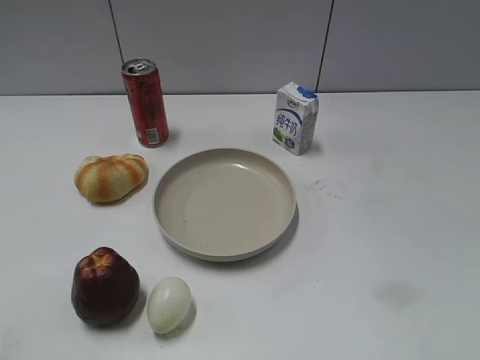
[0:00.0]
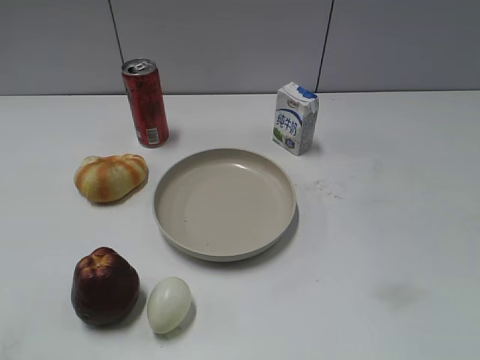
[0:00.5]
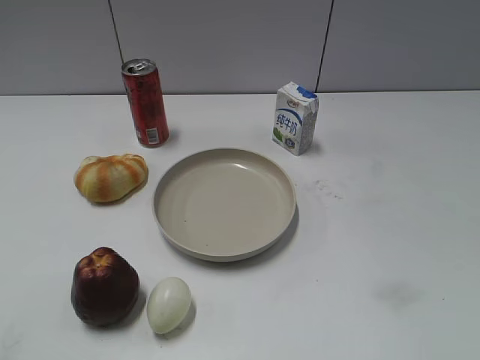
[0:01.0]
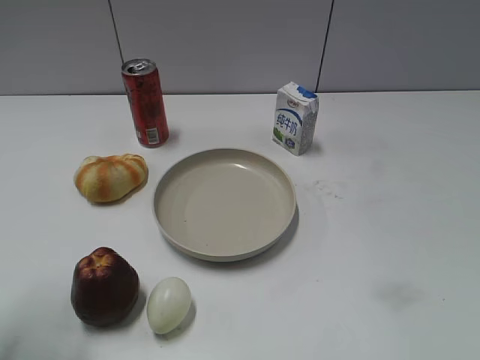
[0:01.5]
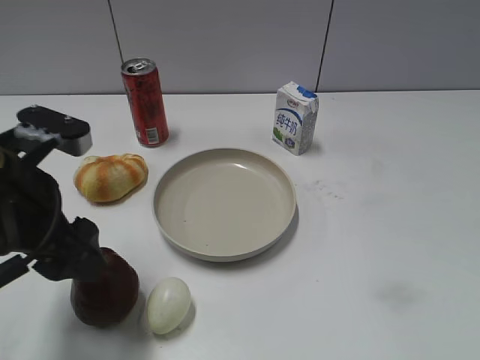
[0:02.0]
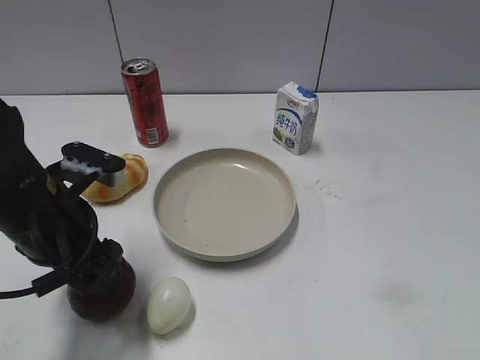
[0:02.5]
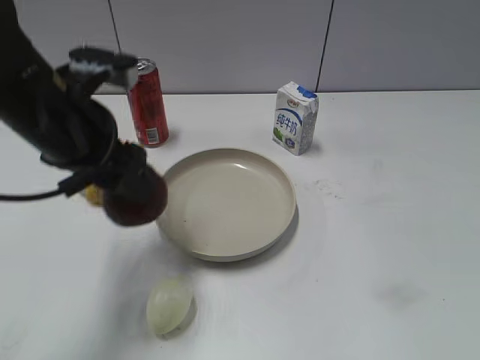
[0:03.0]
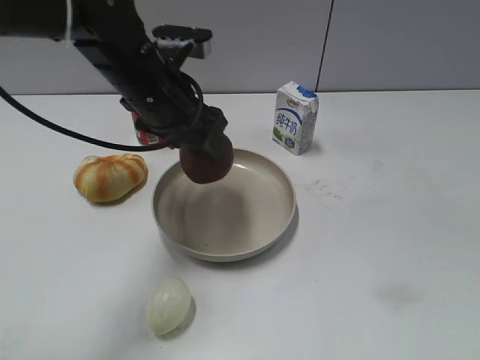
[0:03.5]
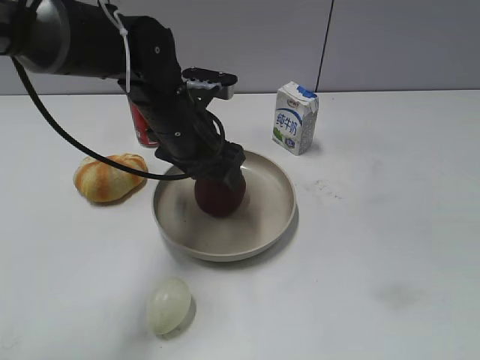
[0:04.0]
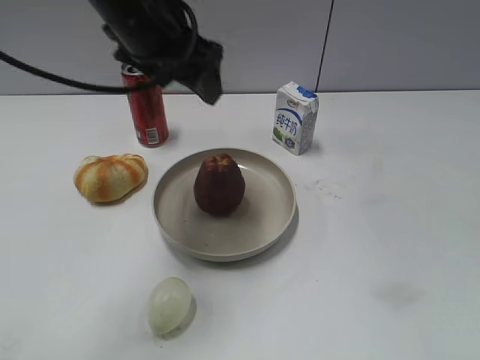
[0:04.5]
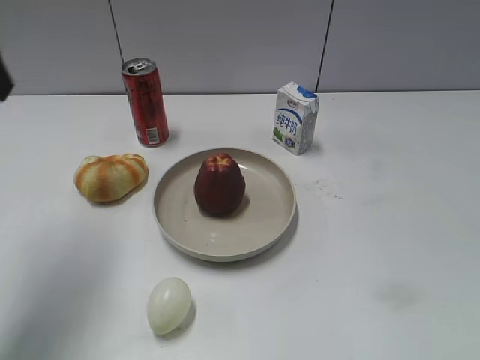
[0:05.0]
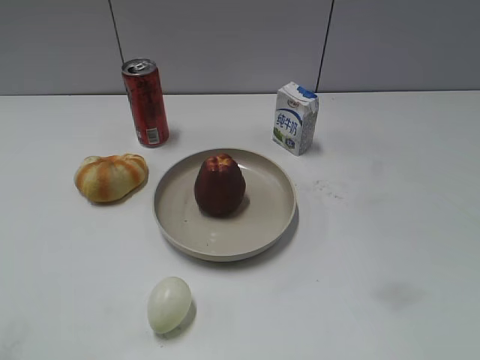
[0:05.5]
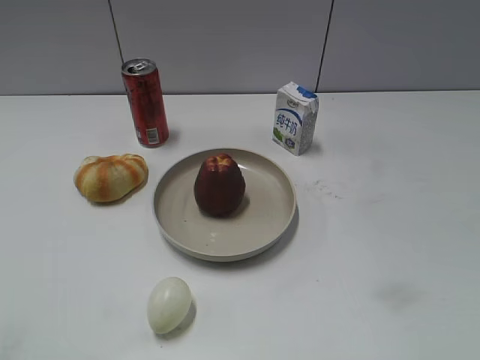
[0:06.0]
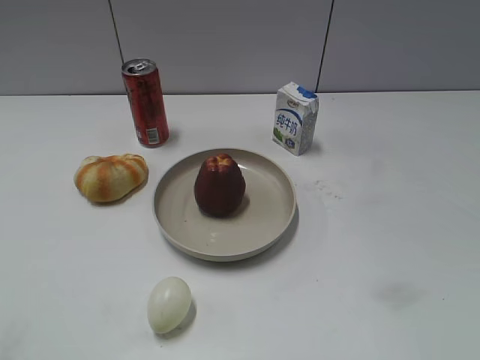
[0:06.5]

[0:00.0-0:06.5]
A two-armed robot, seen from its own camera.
Step, 0:01.0 to 0:02.5: Grasp the apple with left gripper.
Step, 0:03.0 to 0:04.0: Place the apple on the plate with left gripper.
0:02.0 to 0:04.5: The left gripper goes up and down, some 20 cm each way, reversing 2 times, and closes and opens again.
0:04.5 to 0:06.5: The left gripper heads backward and to the left, covering some 40 cm, and closes its fingers.

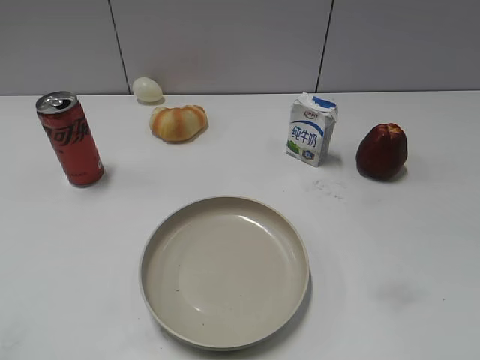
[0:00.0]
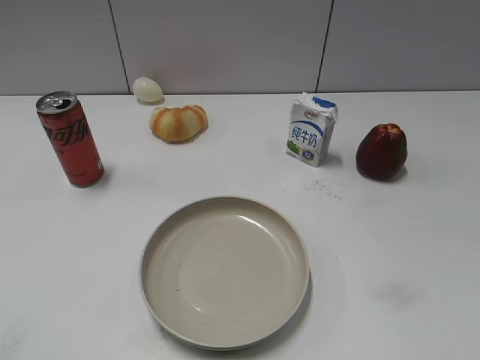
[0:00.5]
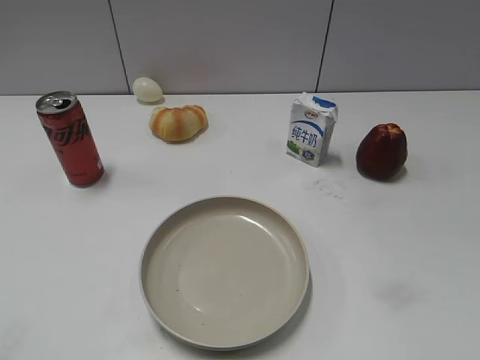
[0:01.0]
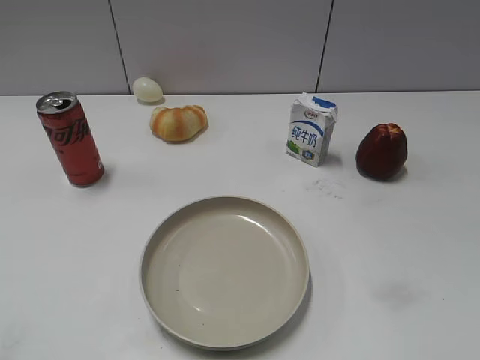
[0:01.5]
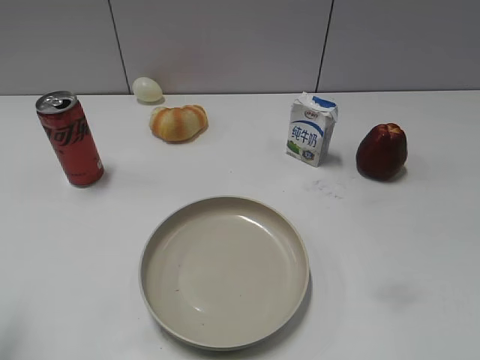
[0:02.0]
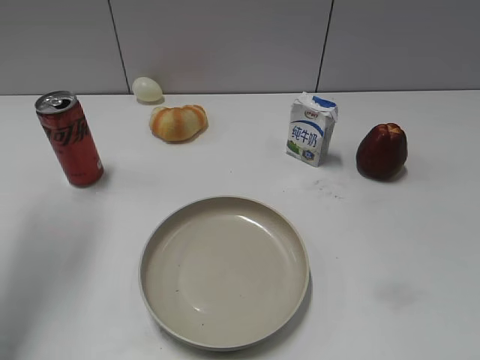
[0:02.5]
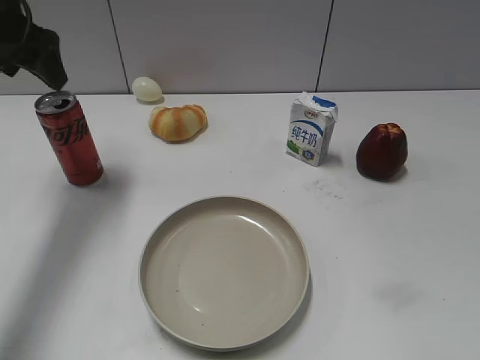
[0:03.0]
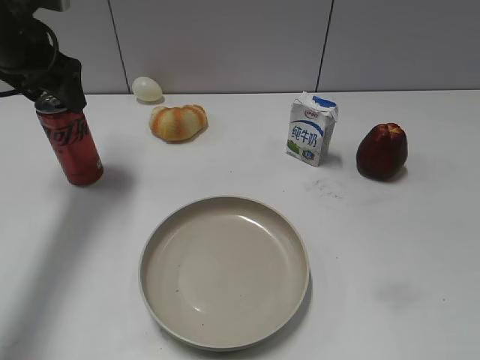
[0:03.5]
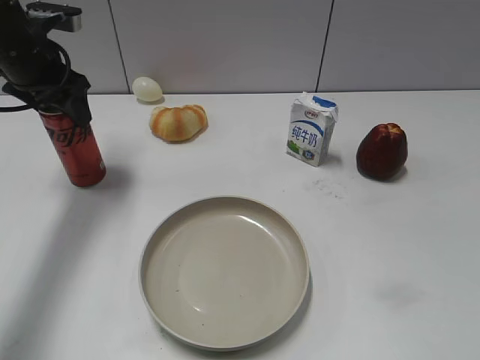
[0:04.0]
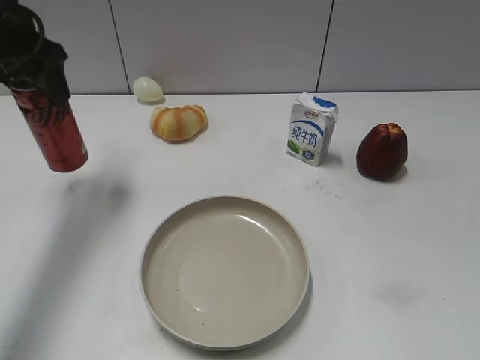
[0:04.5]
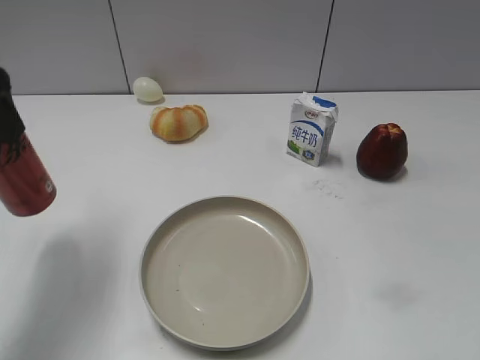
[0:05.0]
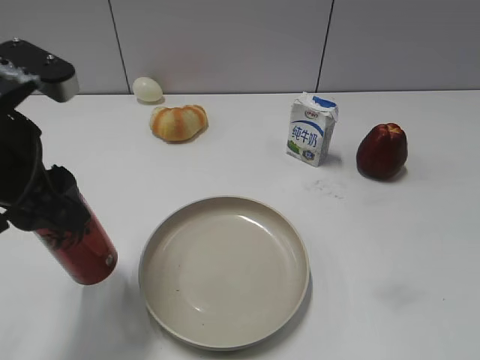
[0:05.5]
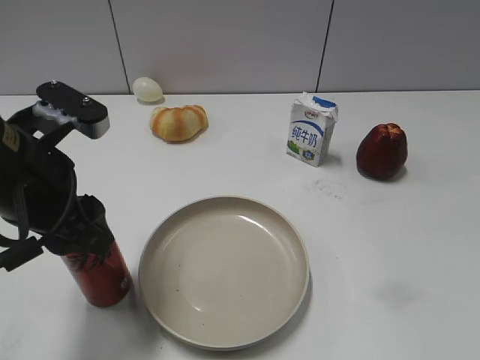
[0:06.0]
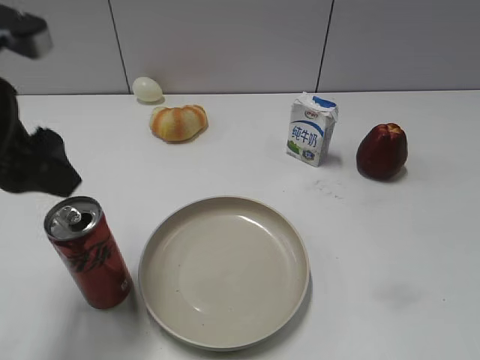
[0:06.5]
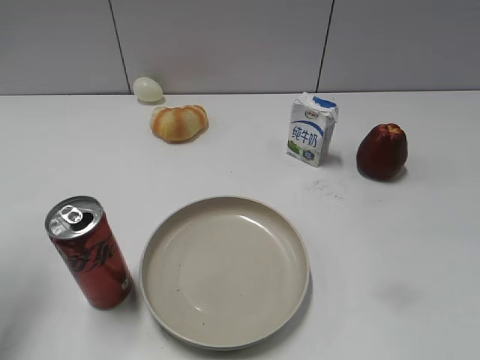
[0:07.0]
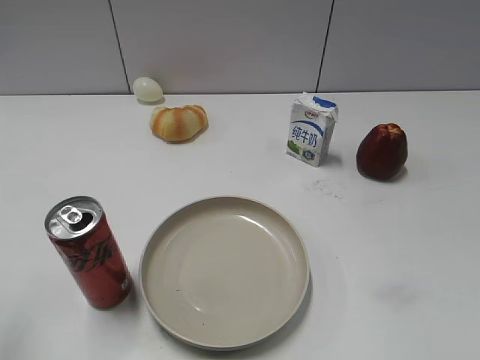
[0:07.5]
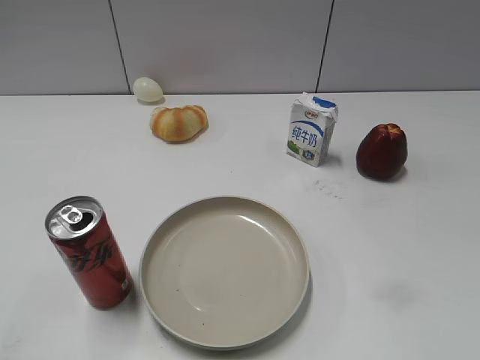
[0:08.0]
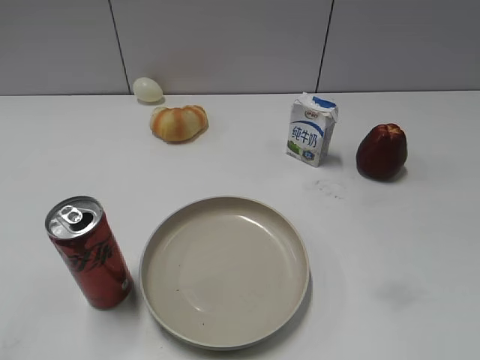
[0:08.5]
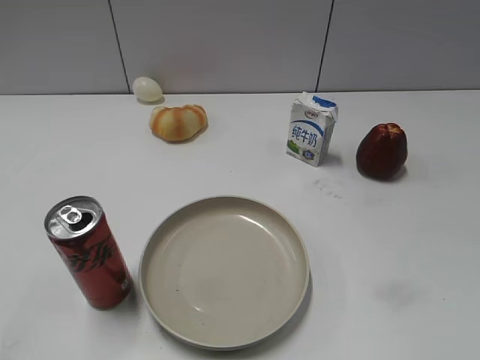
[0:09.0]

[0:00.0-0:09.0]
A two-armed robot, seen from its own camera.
Step, 0:01.5 to 0:04.0: Grasp the cola with left gripper.
Step, 0:04.5 to 0:06.5: Place the cola on the table with left gripper.
0:02.0 to 0:04.5: The left gripper travels forward by approximately 30 cm, and opens, then closes again.
0:04.5 to 0:07.0: The left gripper goes about 20 cm backward, and opens up.
0:07.0 to 0:09.0: The left gripper travels backward by approximately 25 cm.

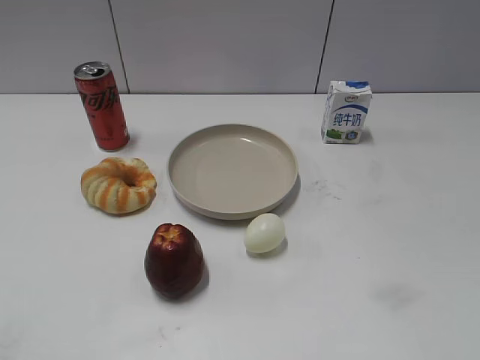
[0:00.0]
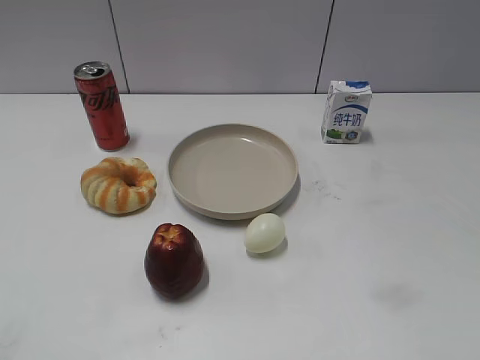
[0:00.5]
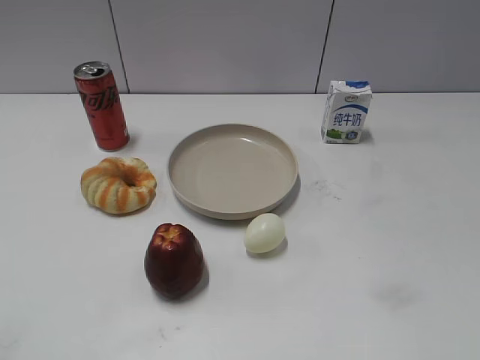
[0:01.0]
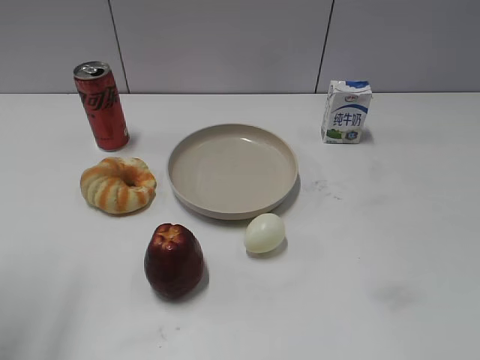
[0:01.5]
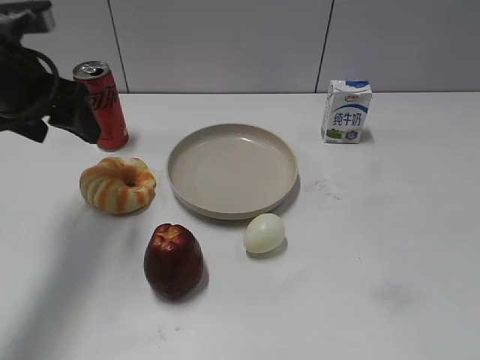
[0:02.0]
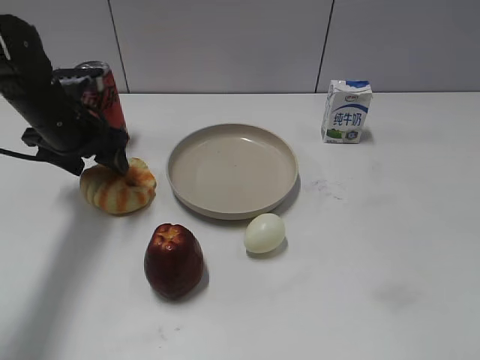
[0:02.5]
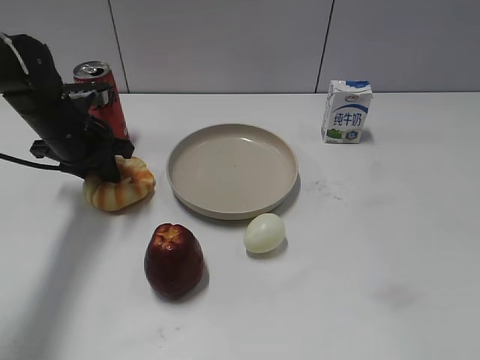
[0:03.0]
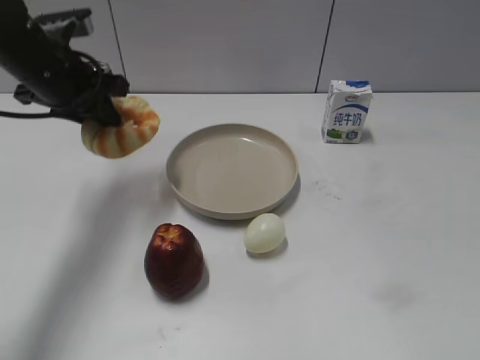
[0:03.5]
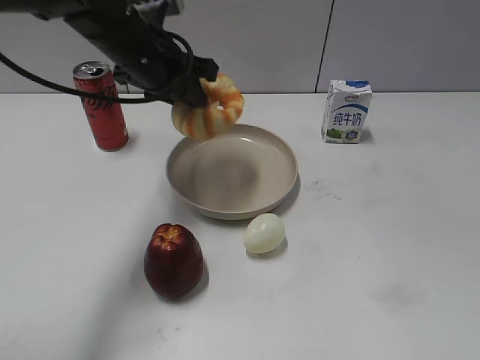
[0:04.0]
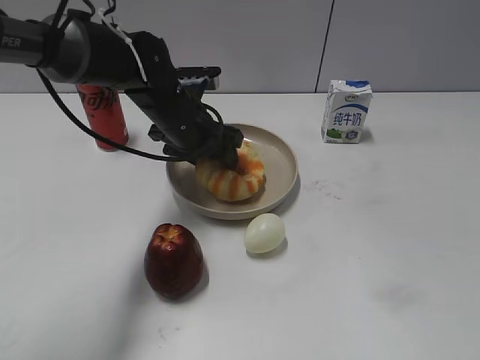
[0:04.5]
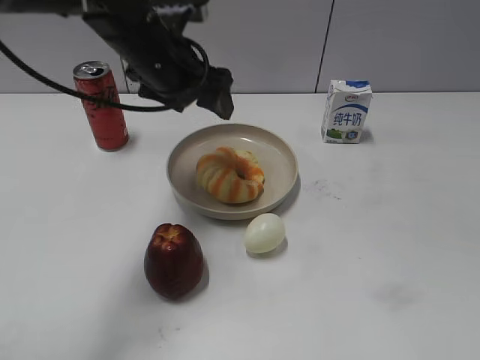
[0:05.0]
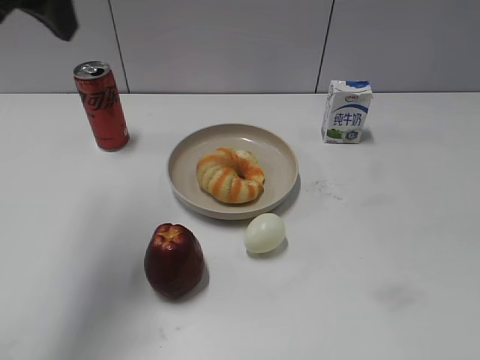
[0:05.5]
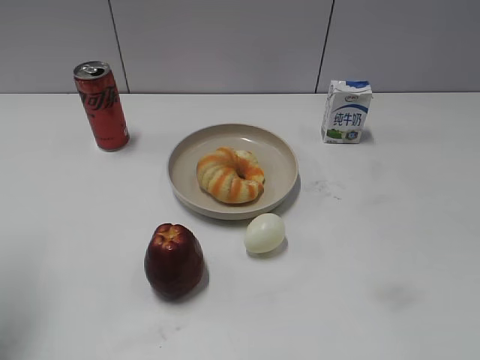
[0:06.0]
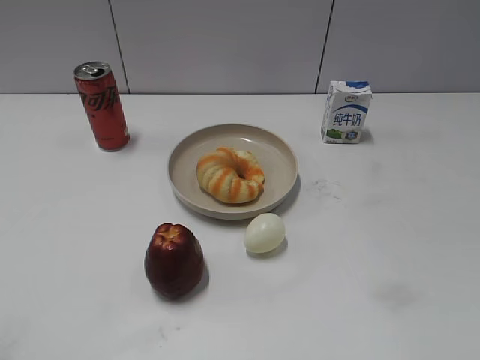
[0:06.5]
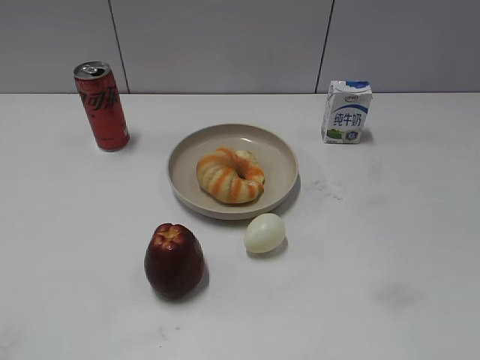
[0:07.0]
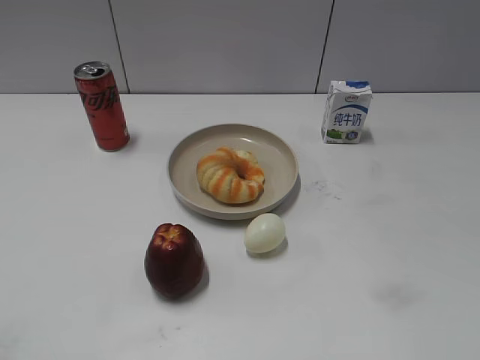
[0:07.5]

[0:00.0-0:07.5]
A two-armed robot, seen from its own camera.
Step, 0:01.0 to 0:03.0: Grasp the round bread with left gripper.
Step, 0:03.5 to 0:04.5: Place the round bread on the plate with left gripper.
0:02.0 to 0:04.0: The left gripper goes about 15 cm to the right and forward, and closes its fingers.
0:04.0 to 0:05.5: The left gripper shifts roughly 20 cm upward, to the left and backward, and opens up.
0:05.5 to 0:07.5: The left gripper shifts approximately 30 cm backward.
